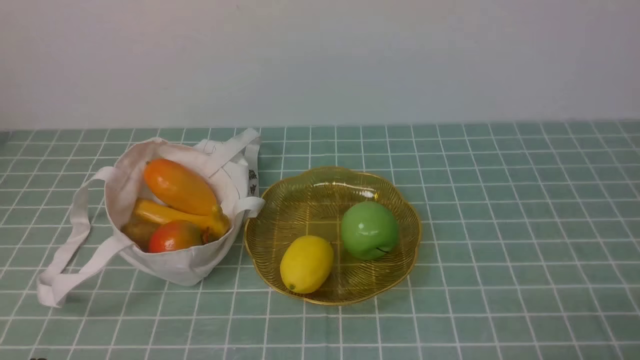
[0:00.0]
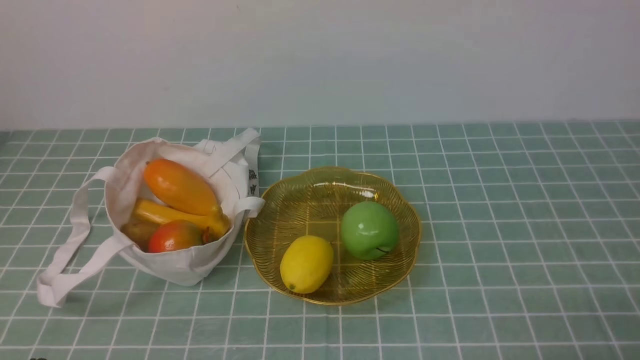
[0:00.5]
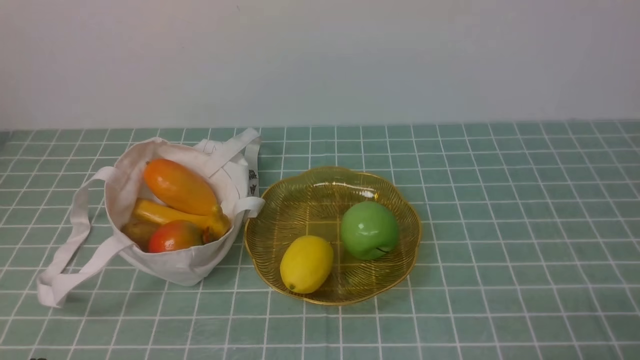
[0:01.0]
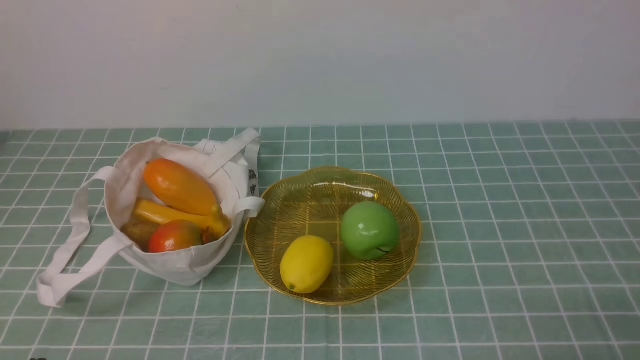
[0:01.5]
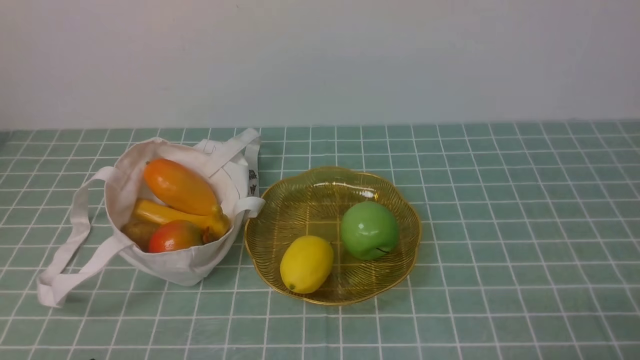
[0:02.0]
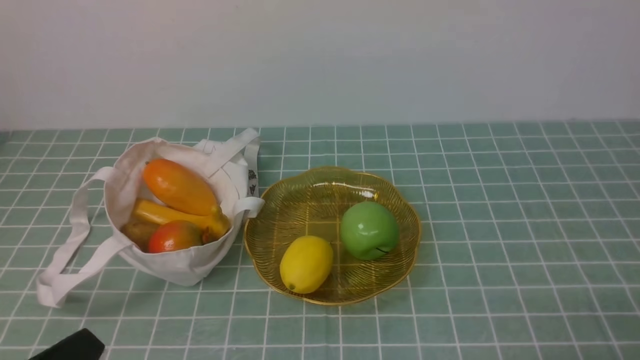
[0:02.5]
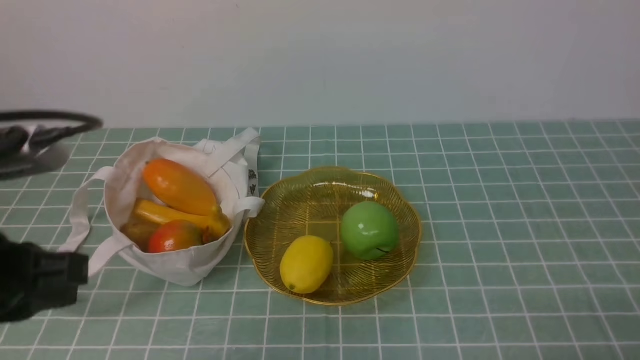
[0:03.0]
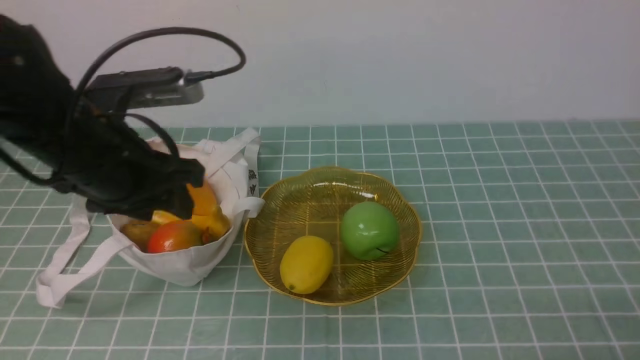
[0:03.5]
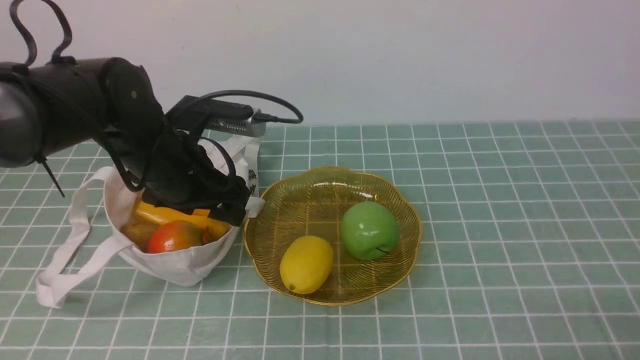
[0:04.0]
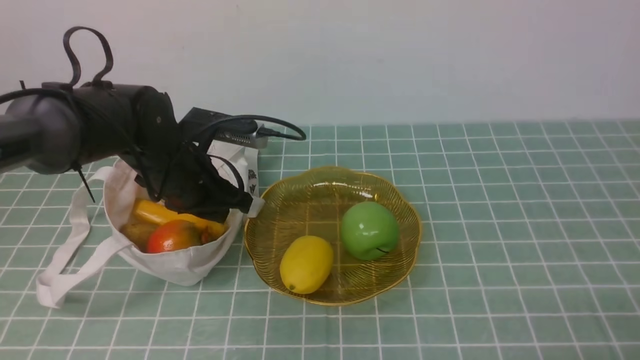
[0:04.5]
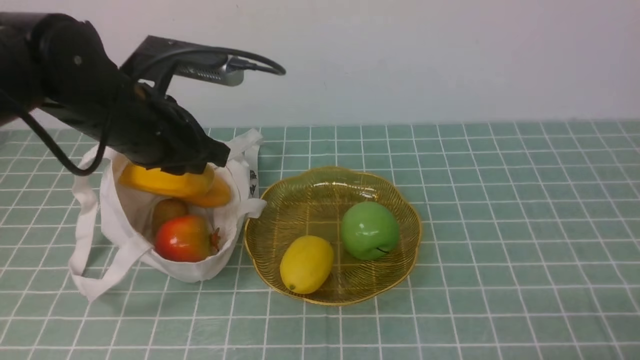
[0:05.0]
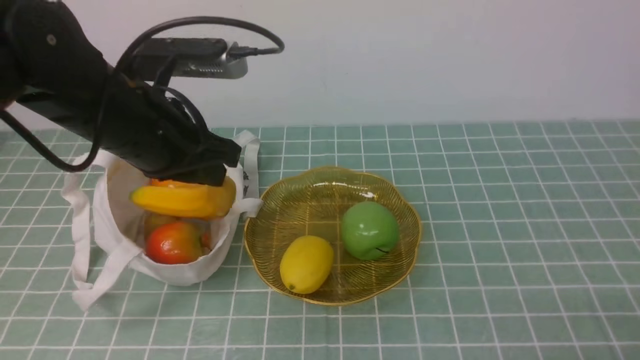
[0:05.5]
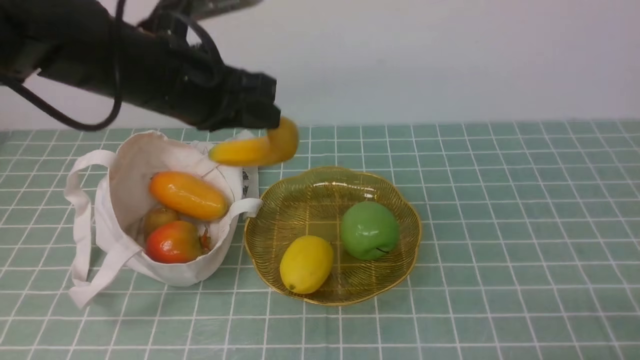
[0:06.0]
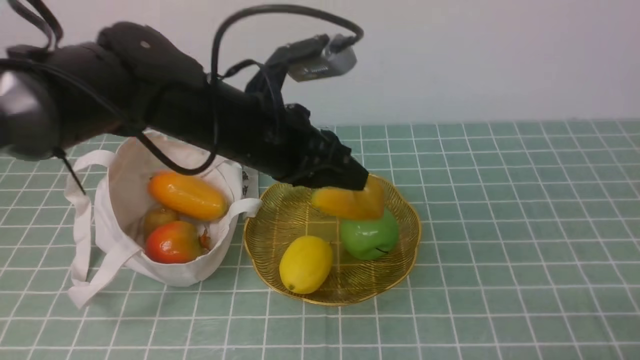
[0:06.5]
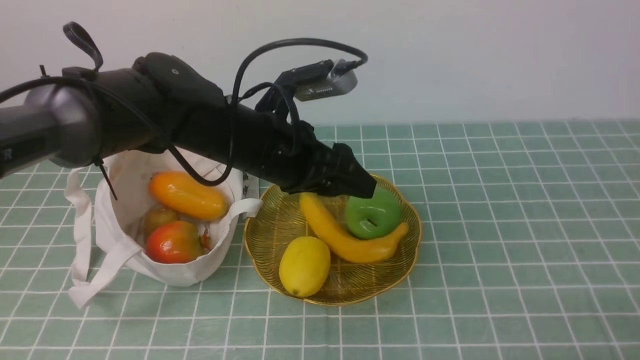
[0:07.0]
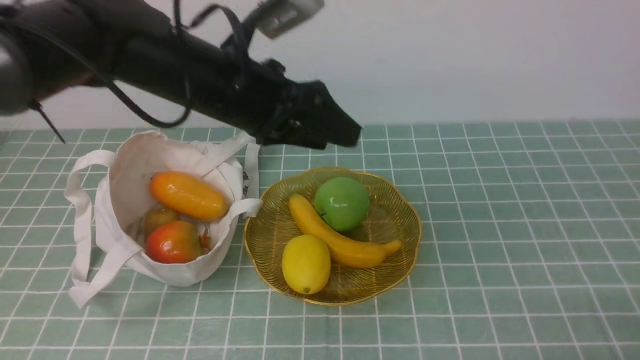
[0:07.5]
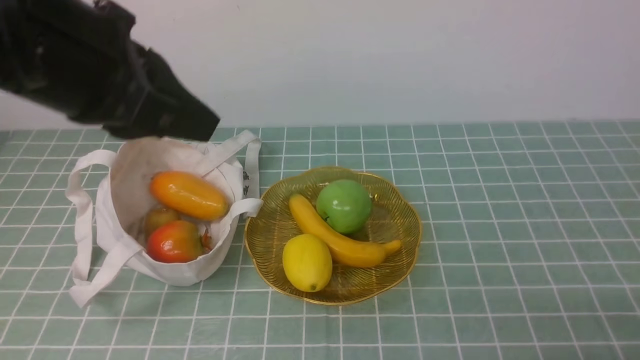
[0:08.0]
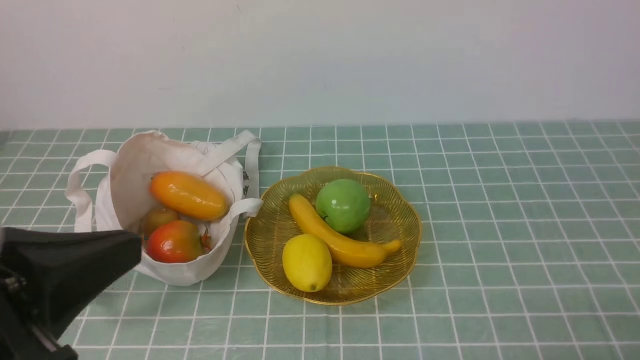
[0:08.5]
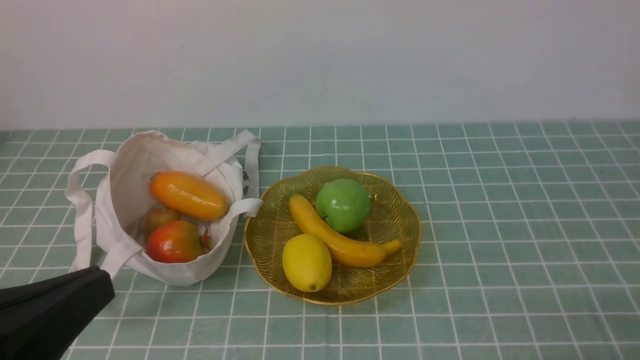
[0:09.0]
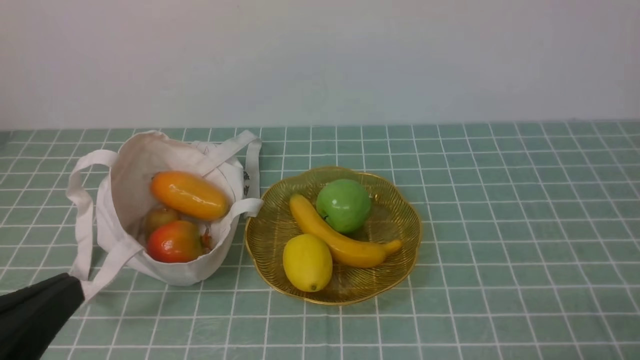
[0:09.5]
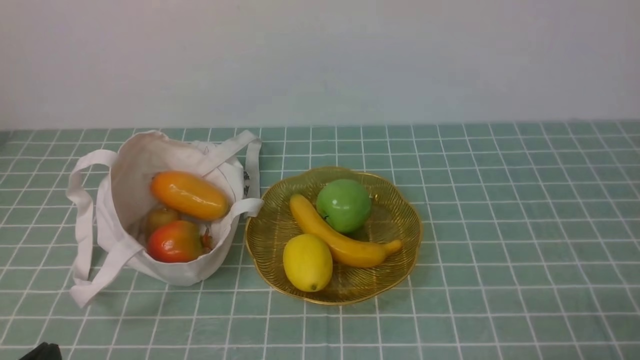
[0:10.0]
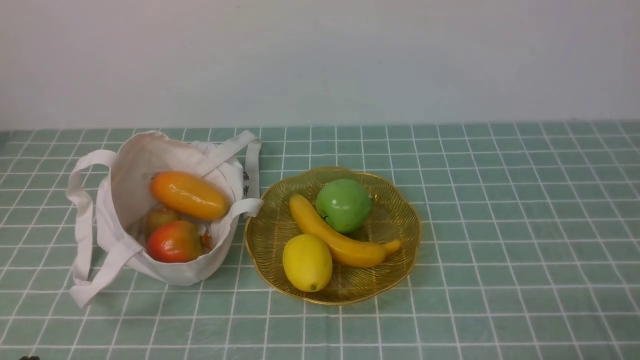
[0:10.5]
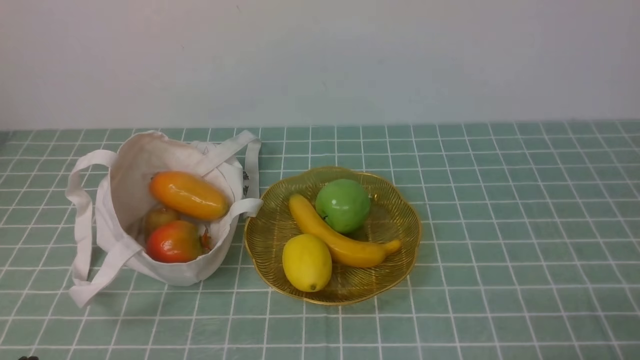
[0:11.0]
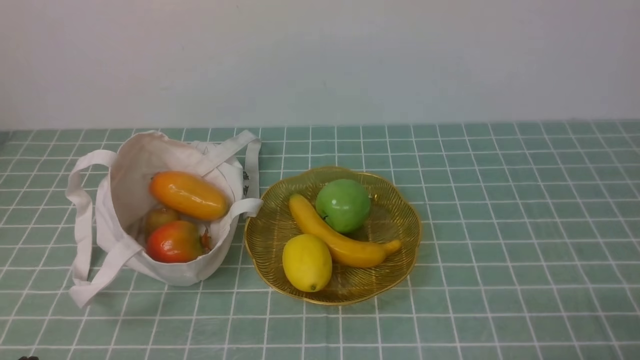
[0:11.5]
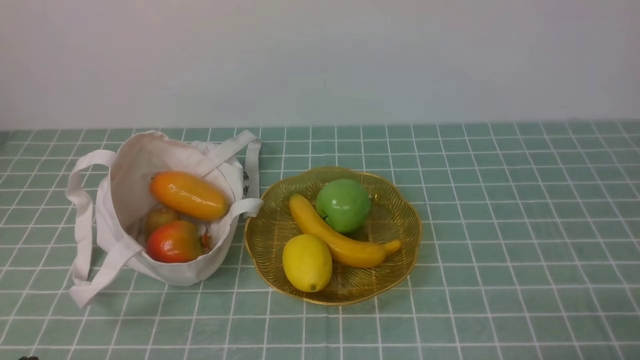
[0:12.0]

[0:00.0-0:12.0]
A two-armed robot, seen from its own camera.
Step, 0:00.0 to 0:05.0: use the left arm to grab a banana from the bag.
Step, 0:05.5 to 0:07.0: use the left arm to put the banana into the empty plate on the right.
0:02.0 to 0:04.0: The left gripper shifts roughly 30 cm forward, and opens.
0:04.0 to 0:06.0: The left gripper heads upward, covering approximately 10 cm, and closes.
0:06.0 to 0:08.0: The left gripper shifts about 10 cm upward and backward, and opens, then closes again.
0:08.0 to 0:10.0: The left gripper goes some 30 cm downward, backward and to the left.
